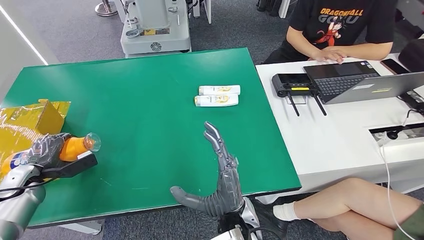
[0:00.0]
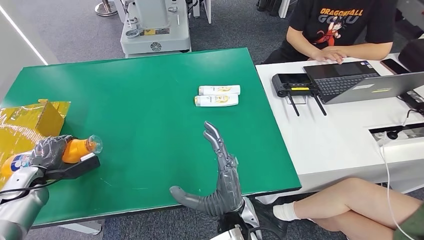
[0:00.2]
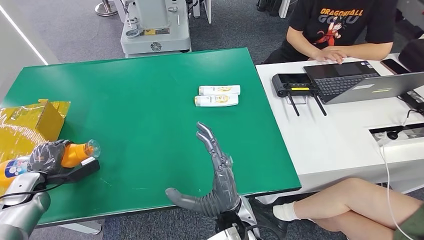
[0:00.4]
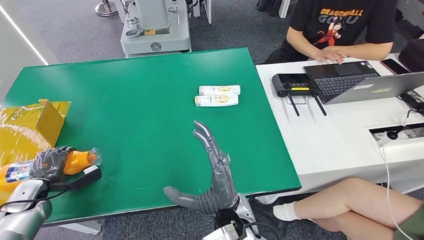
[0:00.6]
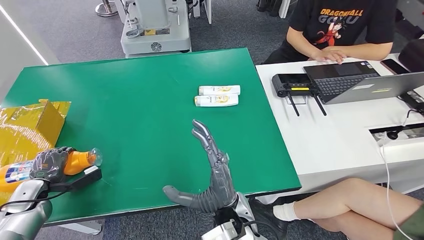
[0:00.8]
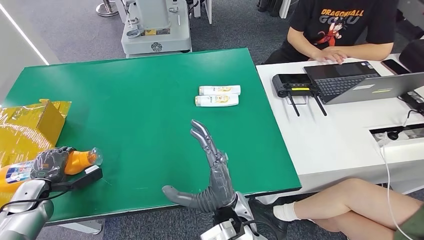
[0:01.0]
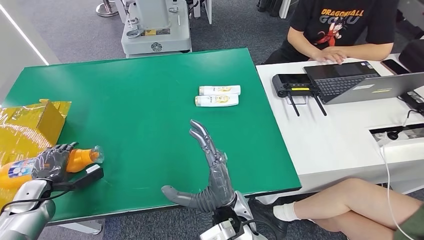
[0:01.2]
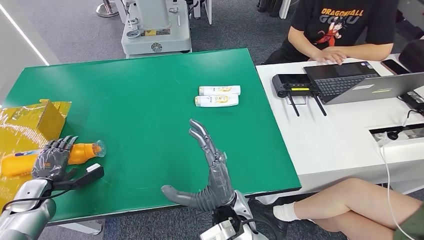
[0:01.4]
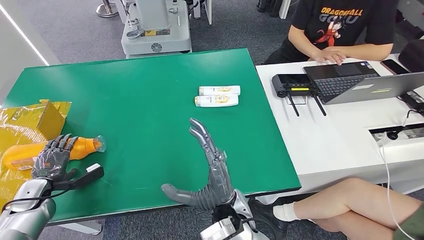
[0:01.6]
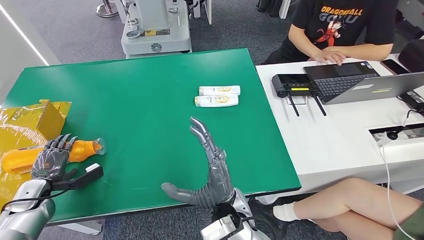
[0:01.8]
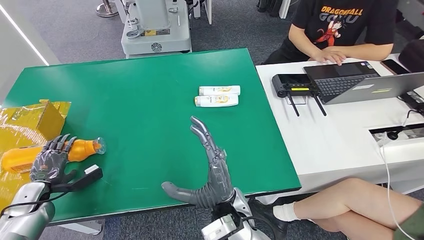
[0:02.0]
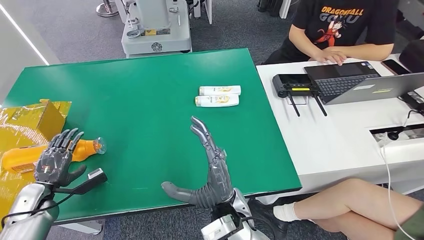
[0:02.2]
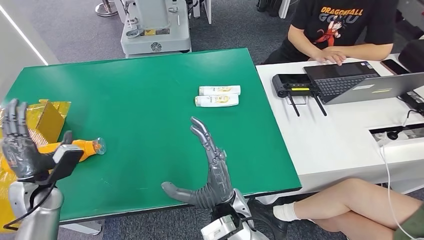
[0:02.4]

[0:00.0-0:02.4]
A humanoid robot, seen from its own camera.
Step, 0:00.0 to 0:02.4: Turn the bottle to the front side.
0:00.0 to 0:01.2: The left hand shifts by some 5 cm.
0:01.2 to 0:02.4: The left hand shifts roughly 10 cm to the right and upward.
